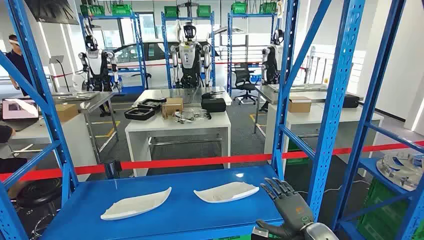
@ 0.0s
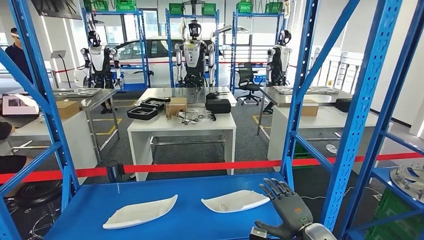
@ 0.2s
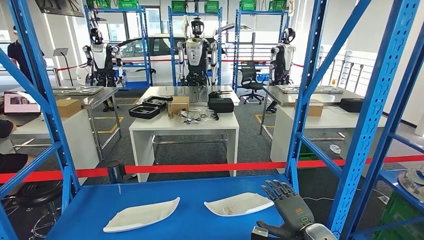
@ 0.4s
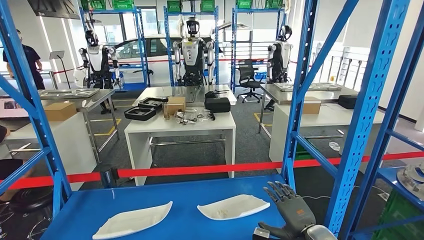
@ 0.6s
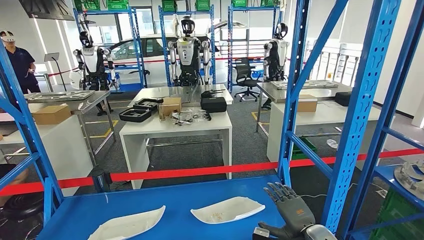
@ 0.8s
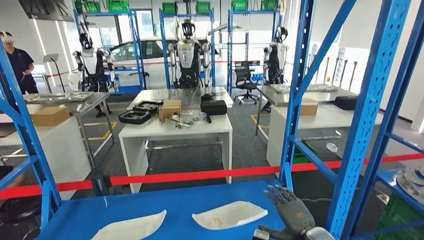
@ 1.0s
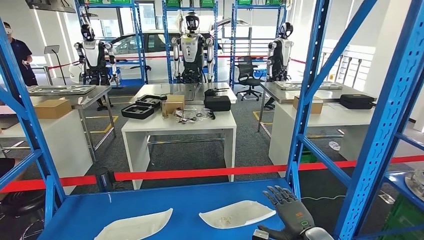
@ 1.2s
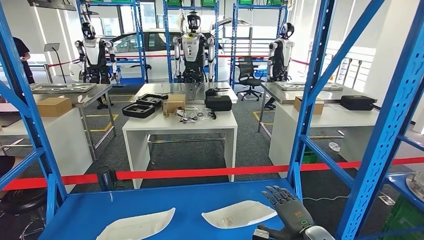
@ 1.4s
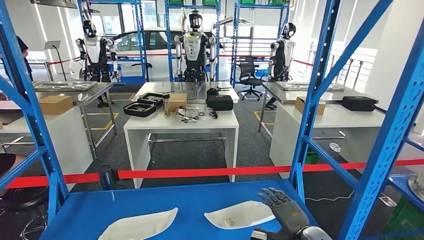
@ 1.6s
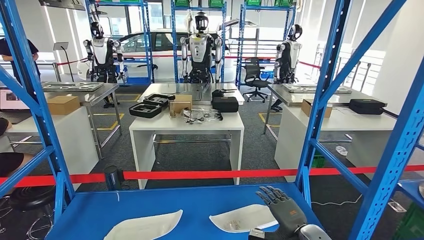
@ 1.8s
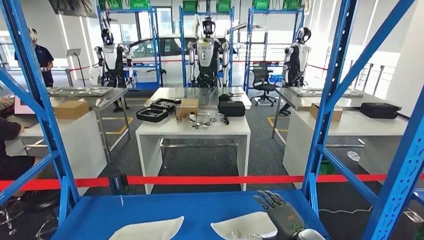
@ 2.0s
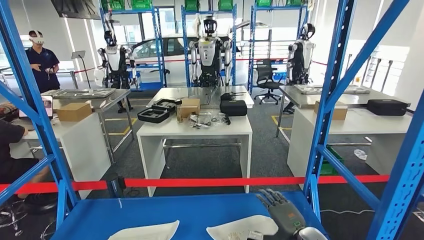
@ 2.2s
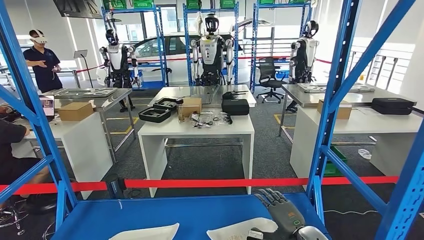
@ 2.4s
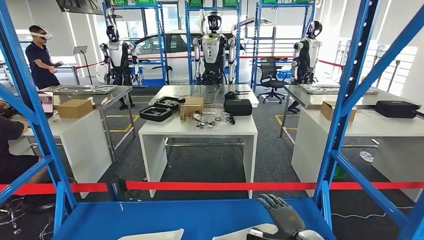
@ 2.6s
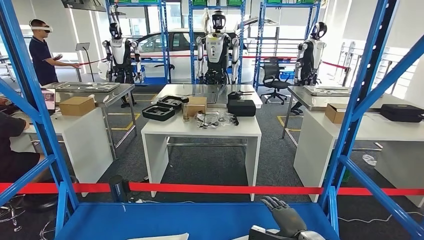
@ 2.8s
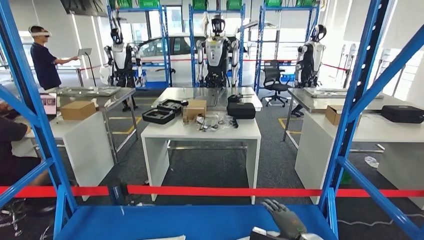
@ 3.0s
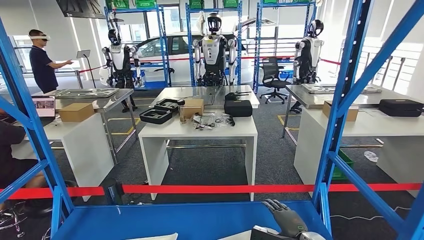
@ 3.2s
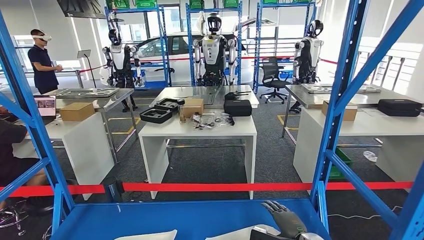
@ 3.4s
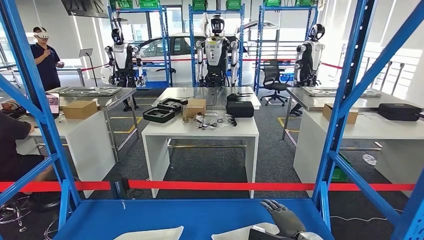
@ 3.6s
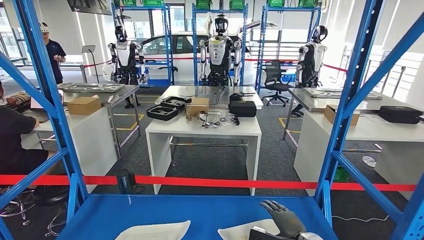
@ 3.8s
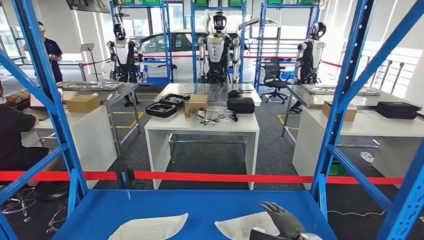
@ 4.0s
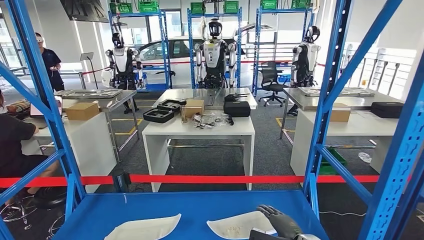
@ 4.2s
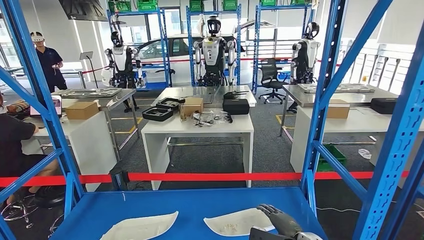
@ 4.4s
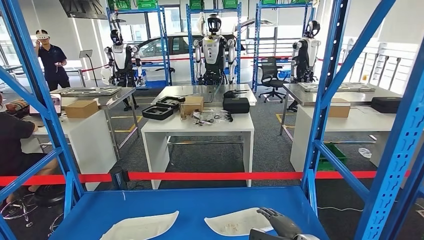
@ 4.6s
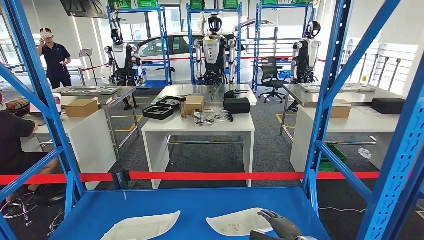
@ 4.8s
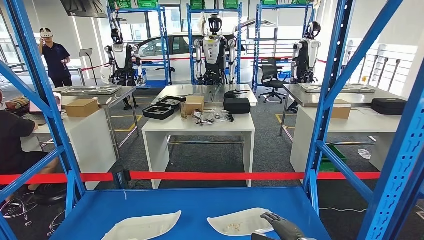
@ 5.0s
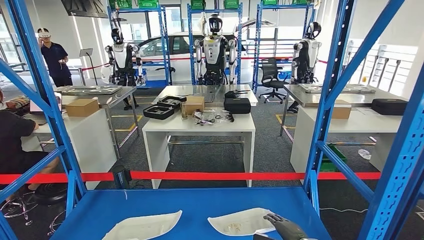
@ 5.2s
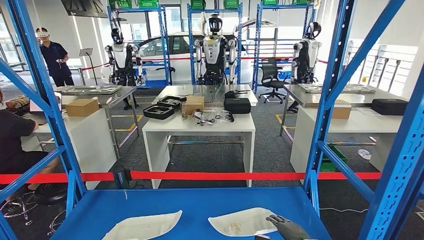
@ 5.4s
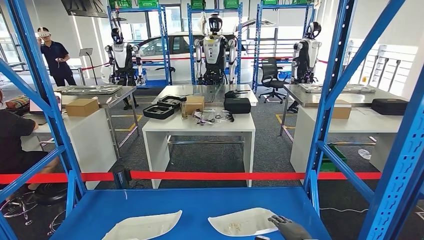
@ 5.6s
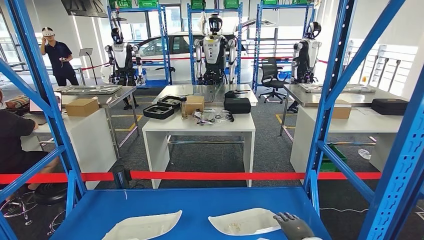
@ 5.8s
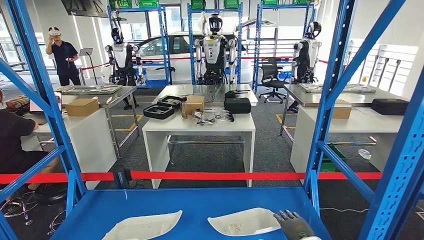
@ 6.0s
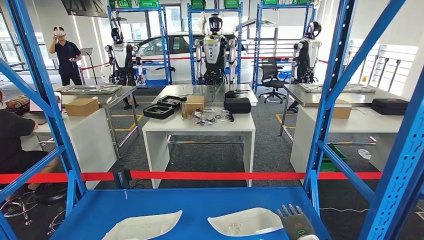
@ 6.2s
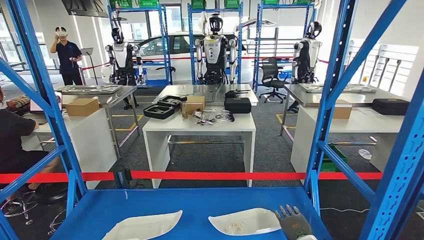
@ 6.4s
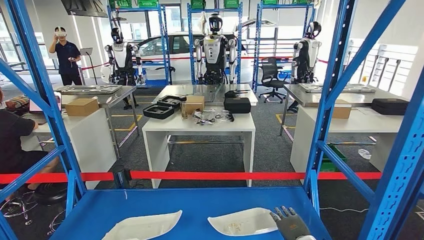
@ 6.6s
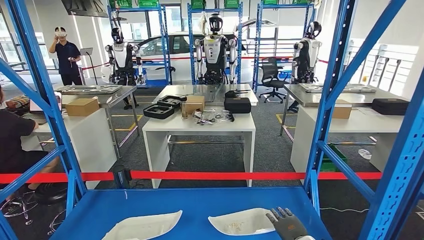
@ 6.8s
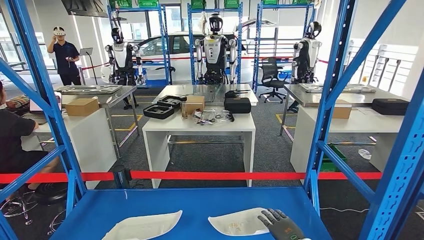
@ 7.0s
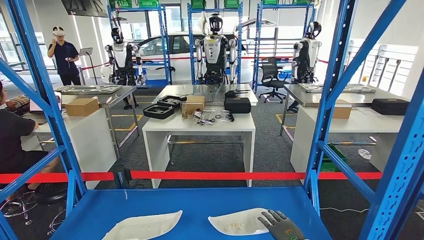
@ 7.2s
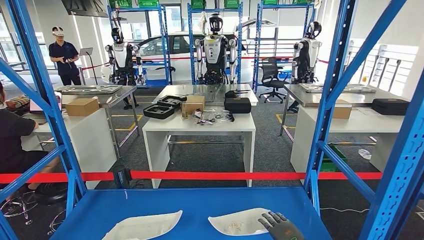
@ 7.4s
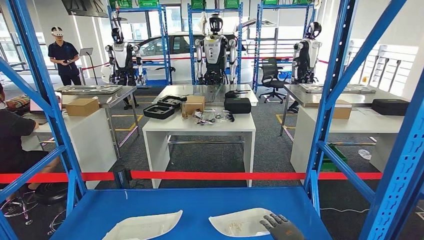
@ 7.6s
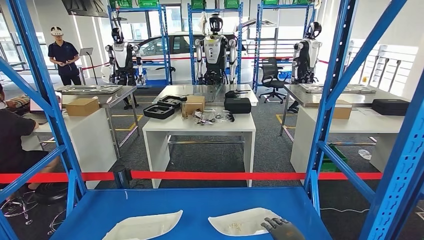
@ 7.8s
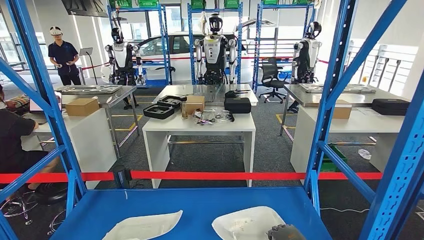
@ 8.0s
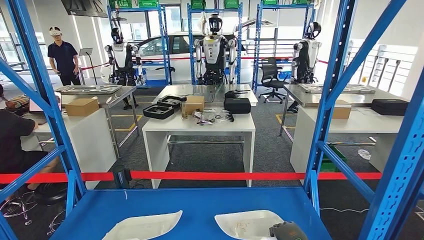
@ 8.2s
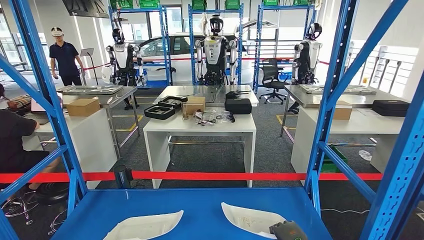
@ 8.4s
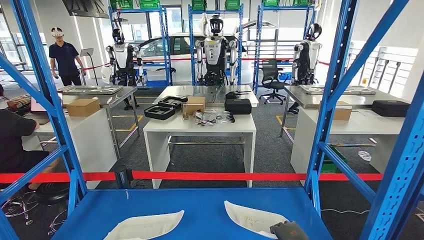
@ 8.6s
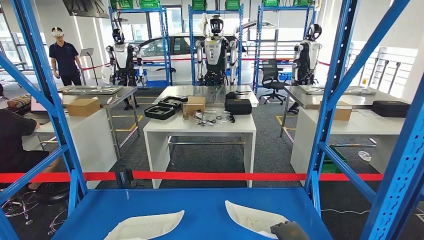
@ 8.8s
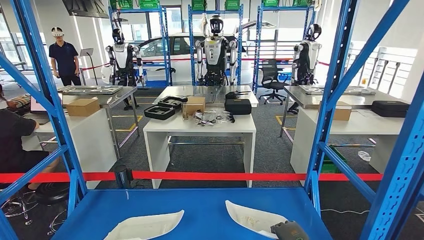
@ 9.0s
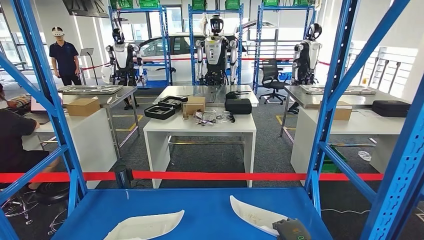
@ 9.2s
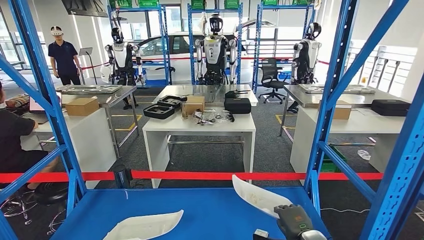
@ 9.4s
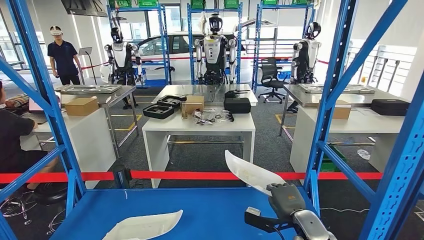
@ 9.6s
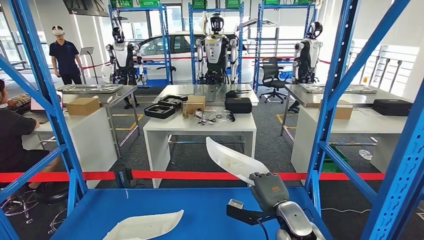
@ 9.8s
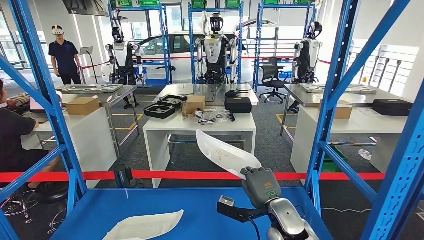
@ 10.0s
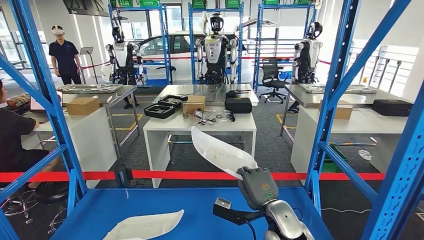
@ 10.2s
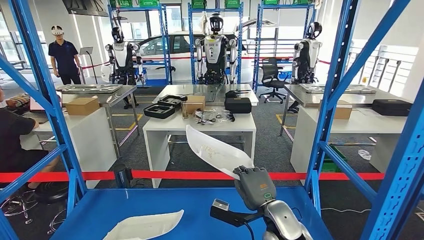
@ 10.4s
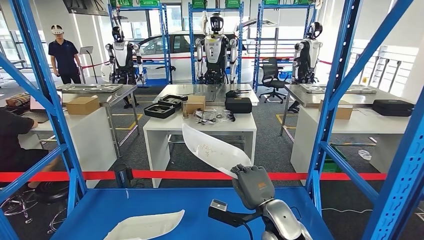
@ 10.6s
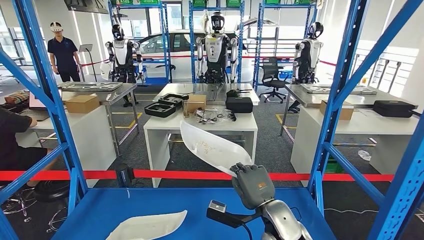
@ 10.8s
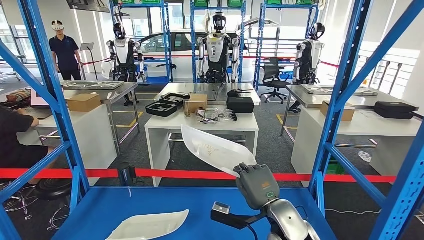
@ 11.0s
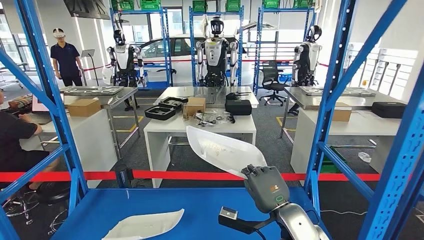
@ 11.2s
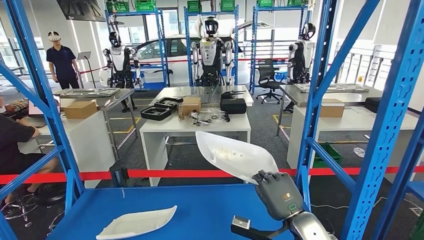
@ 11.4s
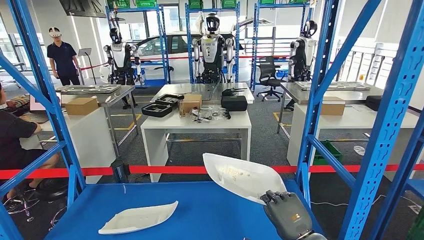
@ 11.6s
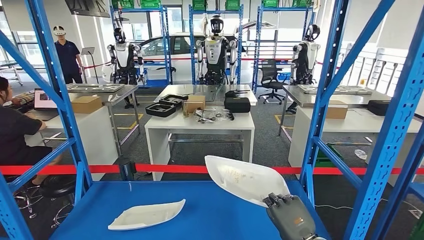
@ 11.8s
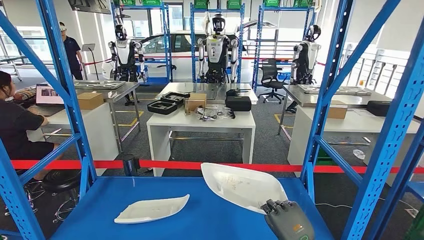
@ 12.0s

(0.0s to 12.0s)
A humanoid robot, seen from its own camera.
Step, 0.0s - 9.8s: Pick up the small component from the shelf.
6.0s - 9.0s: The hands stay close to where they were, moving slightly.
9.0s - 10.4s: The right hand moves upward and to the left, approximately 20 cm.

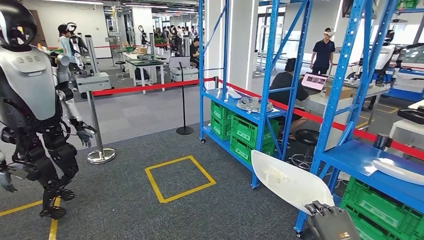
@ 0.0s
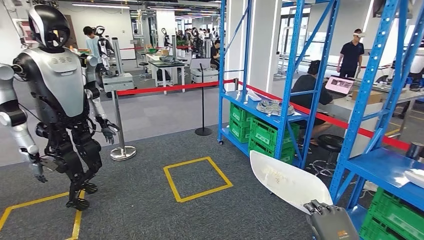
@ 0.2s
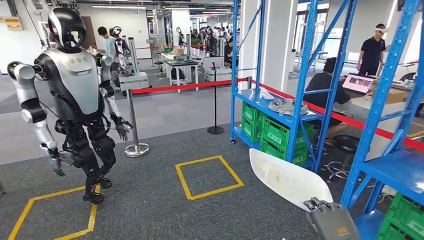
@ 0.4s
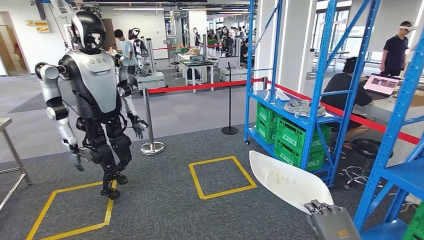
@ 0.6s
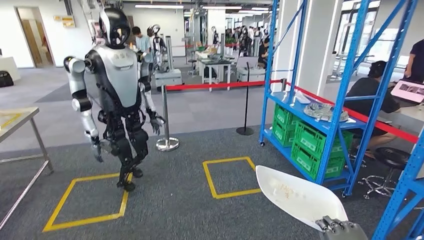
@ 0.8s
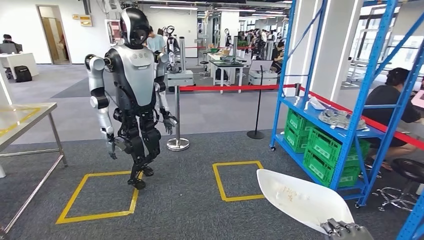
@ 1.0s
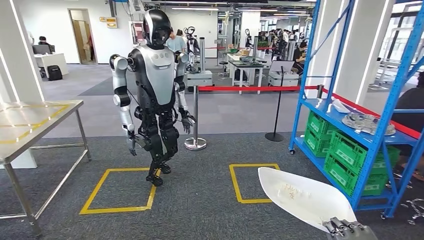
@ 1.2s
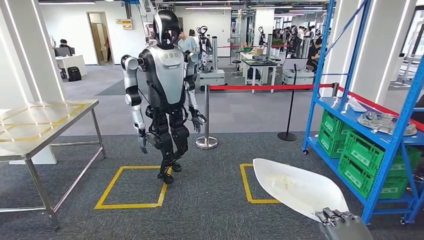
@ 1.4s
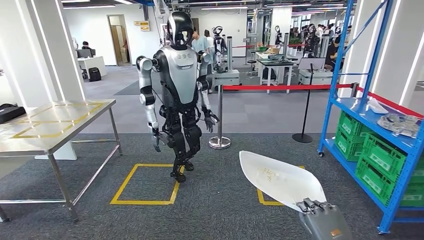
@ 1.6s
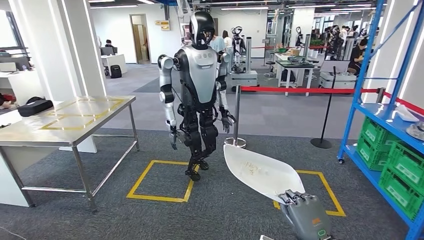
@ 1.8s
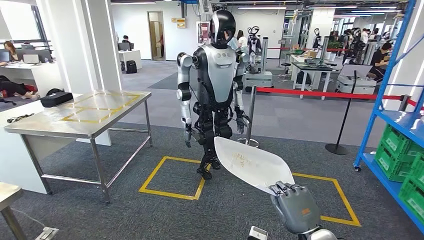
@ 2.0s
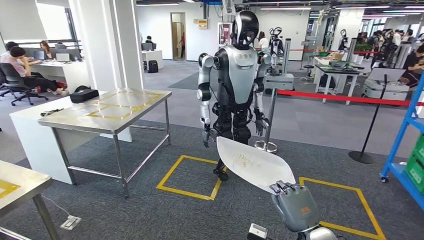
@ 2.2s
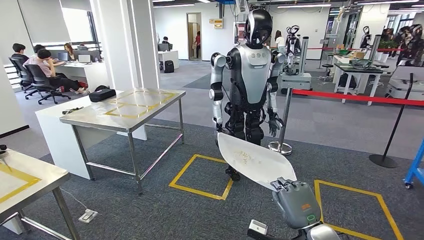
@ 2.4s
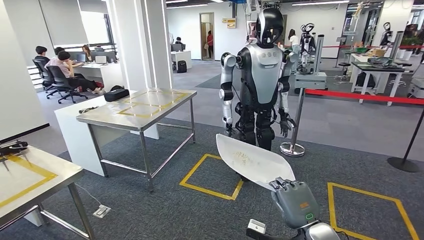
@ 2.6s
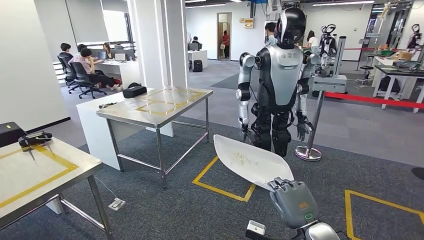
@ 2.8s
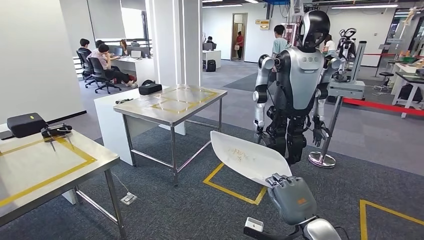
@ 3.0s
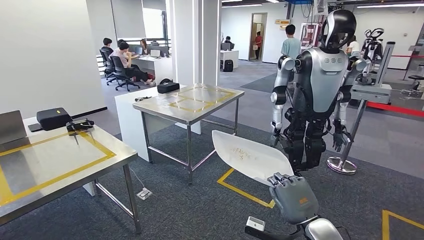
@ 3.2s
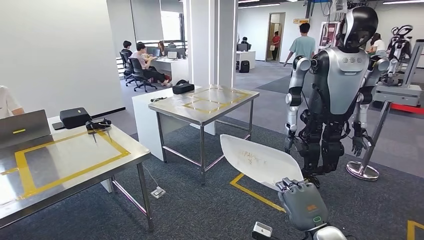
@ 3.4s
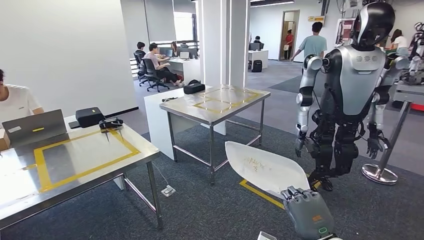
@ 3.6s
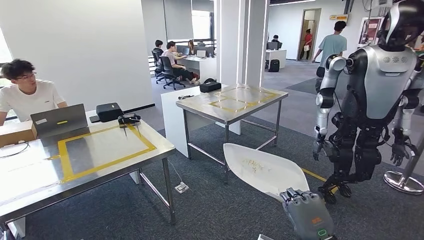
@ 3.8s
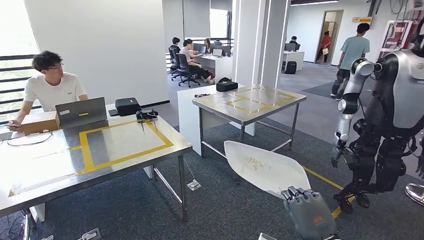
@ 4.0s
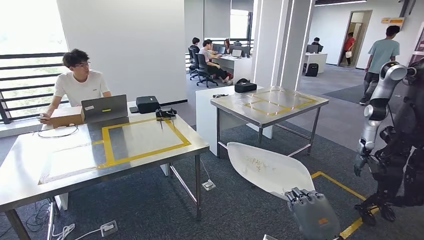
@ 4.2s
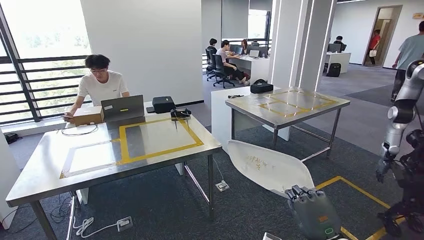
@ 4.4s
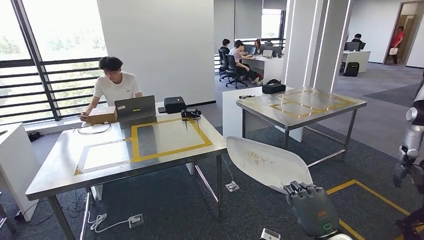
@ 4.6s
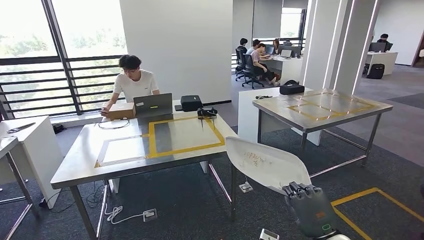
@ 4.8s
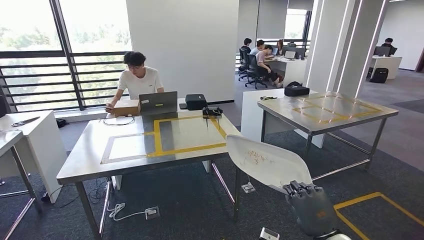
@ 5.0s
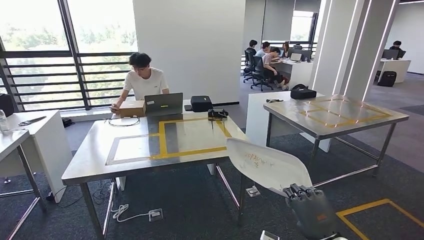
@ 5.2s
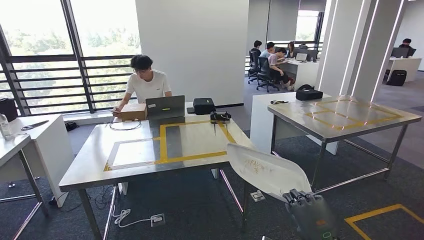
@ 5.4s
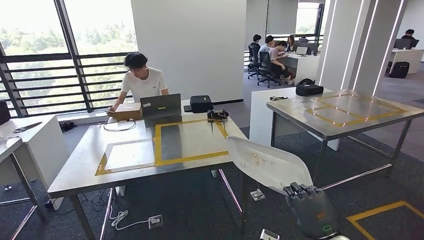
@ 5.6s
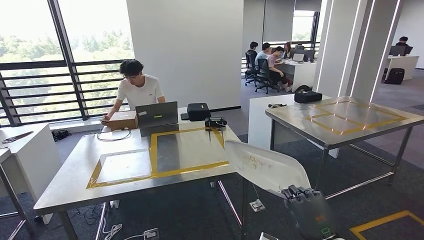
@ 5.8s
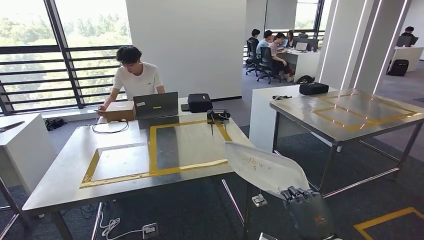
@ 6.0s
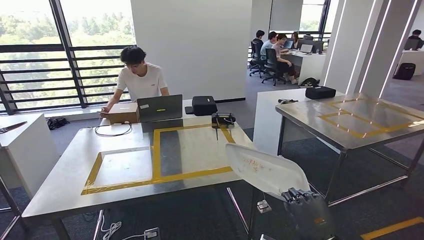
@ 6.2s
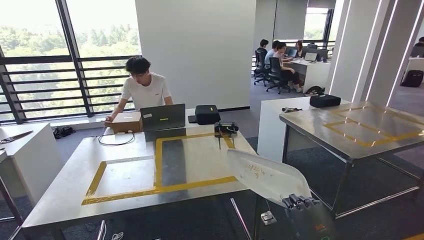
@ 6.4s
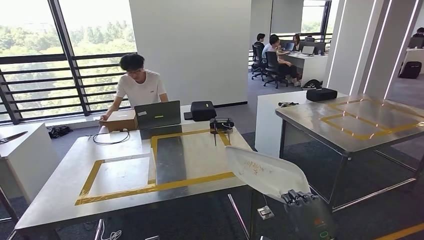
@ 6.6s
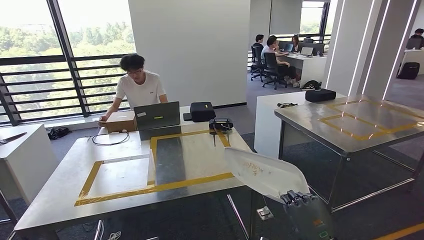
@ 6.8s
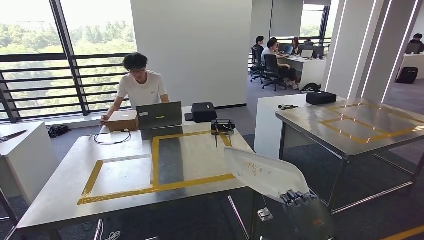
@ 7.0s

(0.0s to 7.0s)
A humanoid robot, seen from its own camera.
Step, 0.0s - 5.8s: Move the small component to the workbench.
